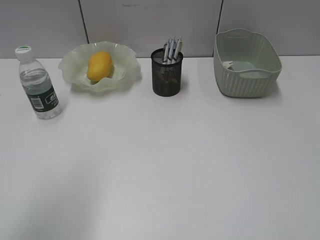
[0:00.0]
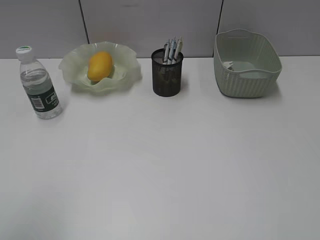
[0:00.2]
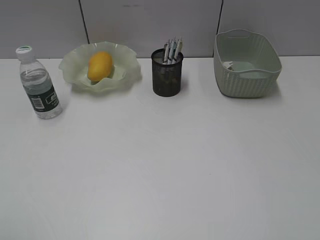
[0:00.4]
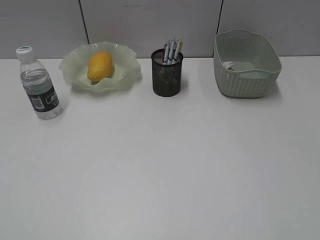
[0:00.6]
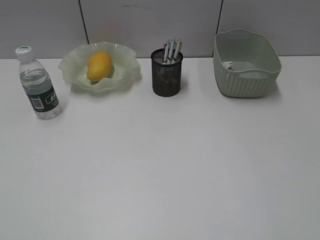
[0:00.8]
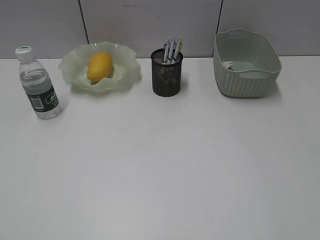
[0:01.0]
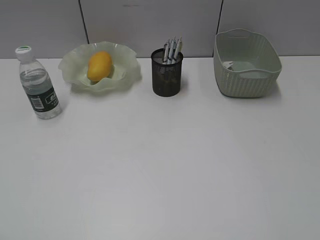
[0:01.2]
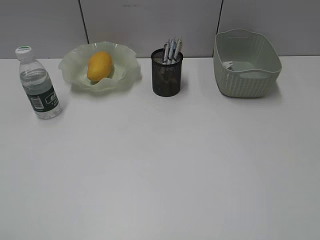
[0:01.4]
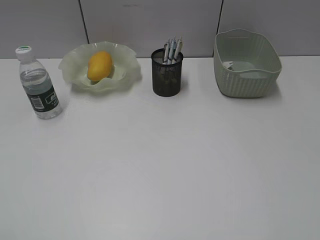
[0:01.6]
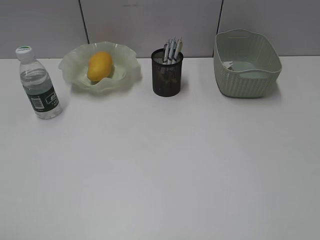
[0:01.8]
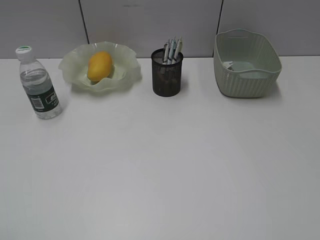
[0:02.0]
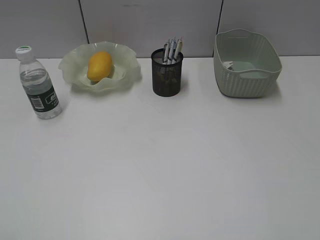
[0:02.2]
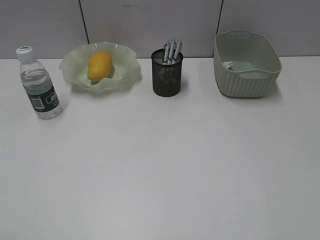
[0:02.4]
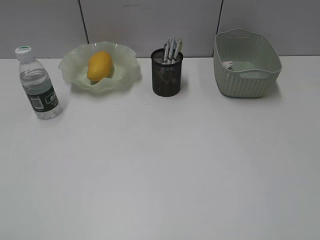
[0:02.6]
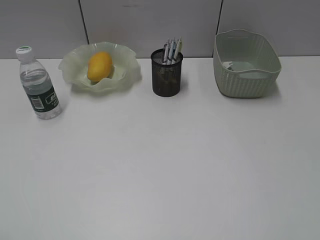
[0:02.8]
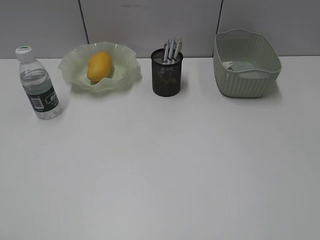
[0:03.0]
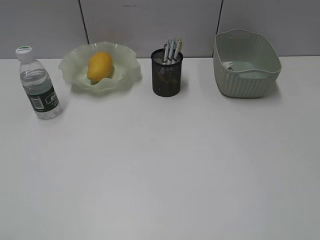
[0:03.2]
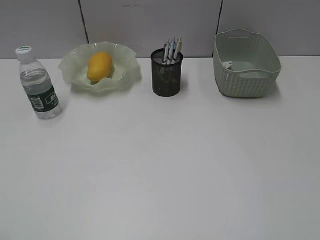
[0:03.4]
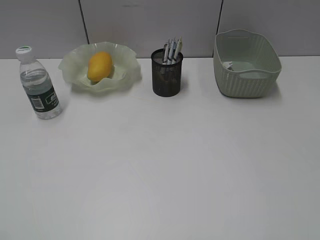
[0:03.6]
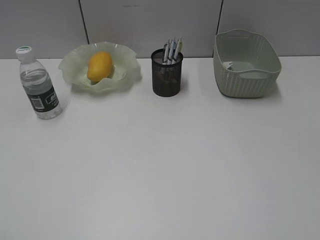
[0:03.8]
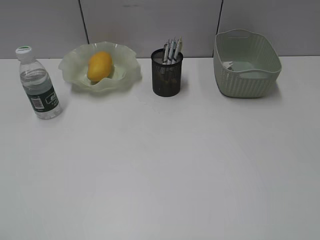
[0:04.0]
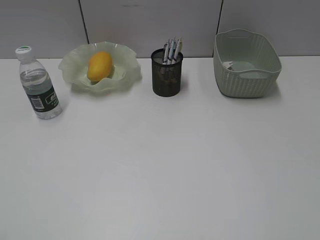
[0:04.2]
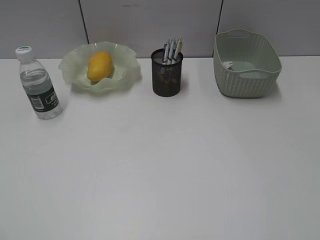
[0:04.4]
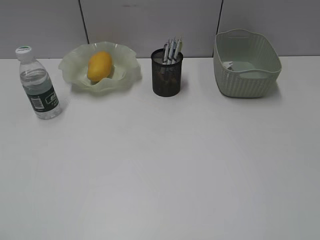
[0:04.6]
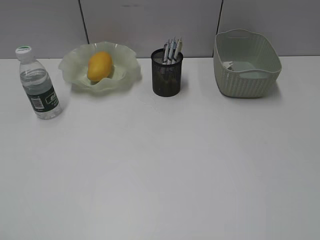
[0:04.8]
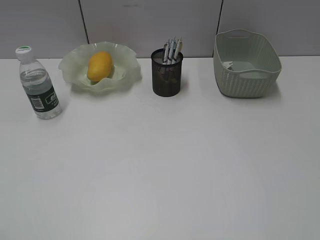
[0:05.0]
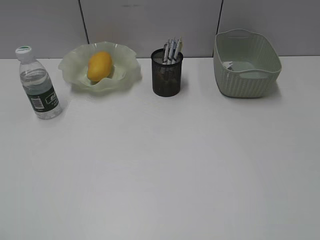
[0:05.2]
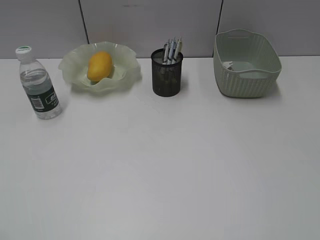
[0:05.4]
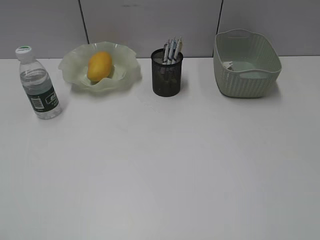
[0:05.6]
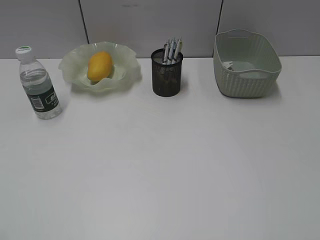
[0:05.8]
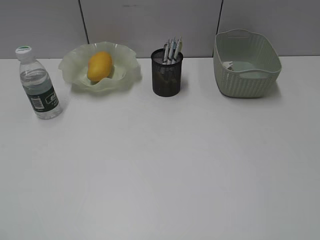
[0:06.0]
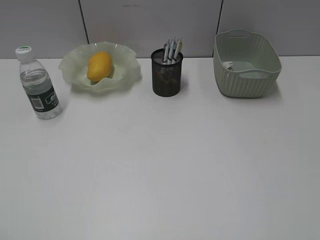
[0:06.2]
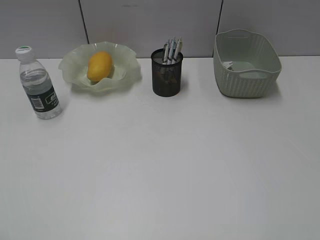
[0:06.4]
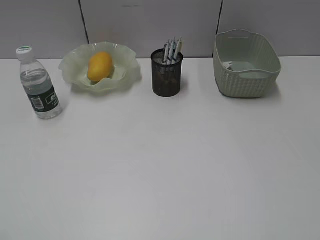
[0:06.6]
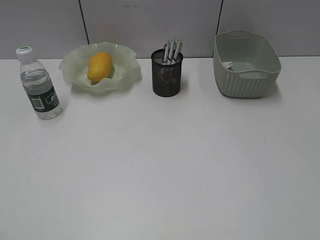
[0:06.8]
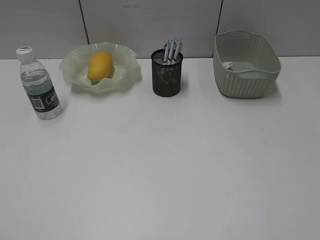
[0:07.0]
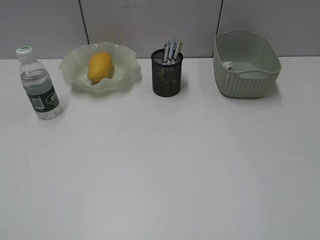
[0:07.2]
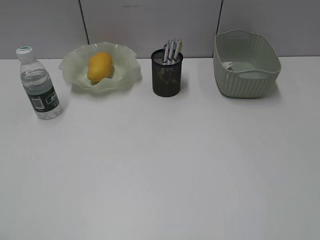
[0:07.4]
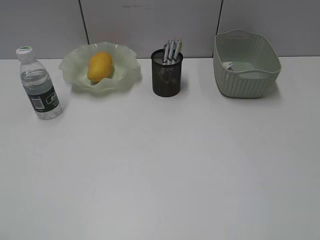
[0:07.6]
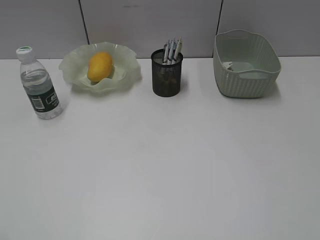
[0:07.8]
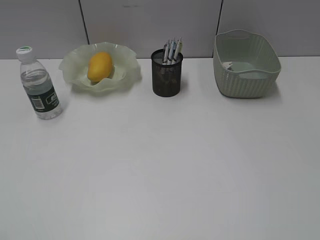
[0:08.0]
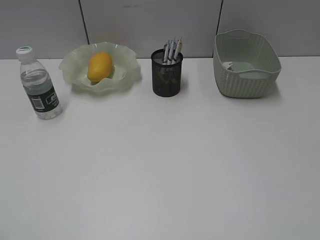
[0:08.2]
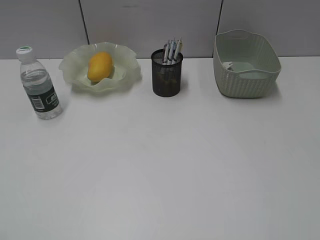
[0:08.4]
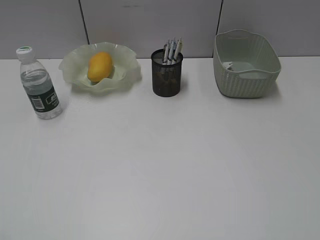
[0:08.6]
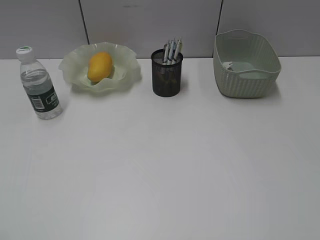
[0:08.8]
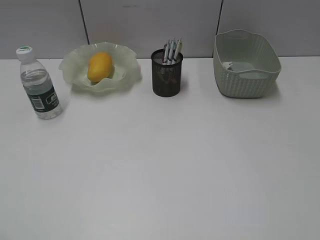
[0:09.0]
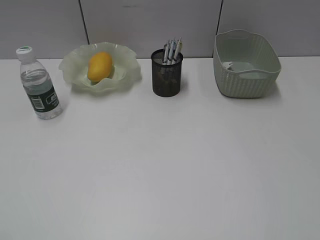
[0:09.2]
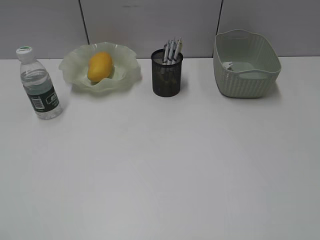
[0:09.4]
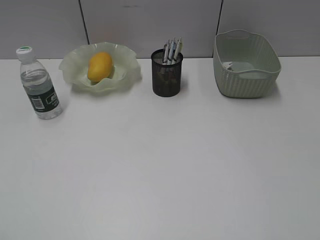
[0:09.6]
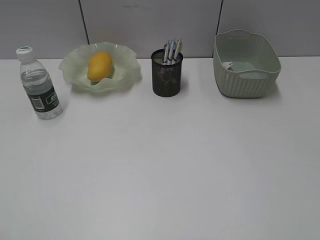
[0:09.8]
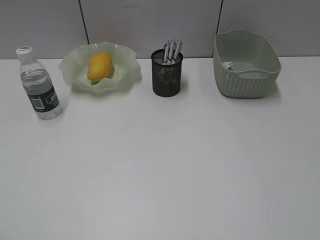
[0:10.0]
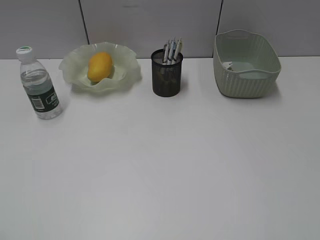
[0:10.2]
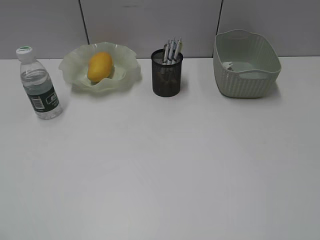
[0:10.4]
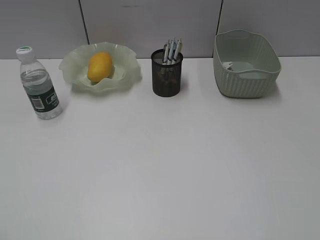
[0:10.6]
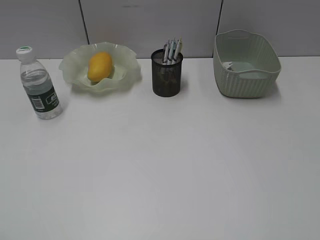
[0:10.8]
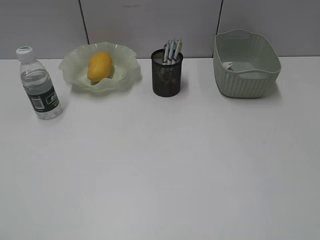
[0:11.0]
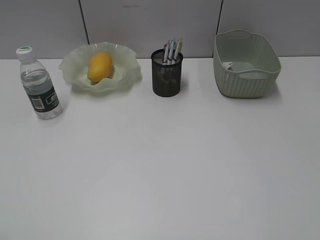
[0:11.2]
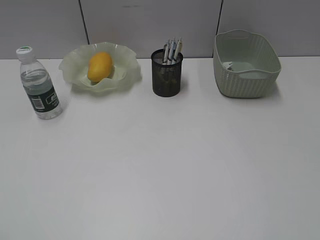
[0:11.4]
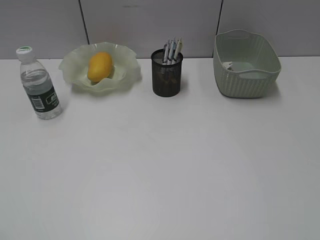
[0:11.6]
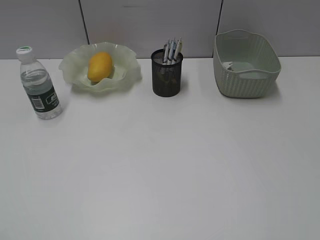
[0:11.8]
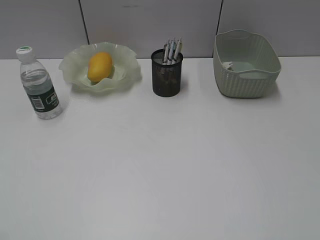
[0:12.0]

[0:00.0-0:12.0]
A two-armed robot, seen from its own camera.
0:04.4 to 0:12.0: Neither gripper changes place.

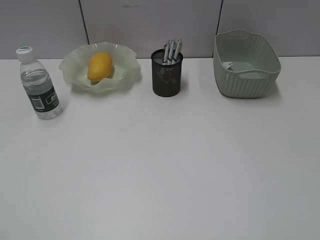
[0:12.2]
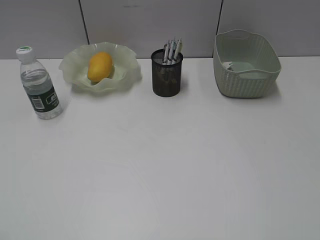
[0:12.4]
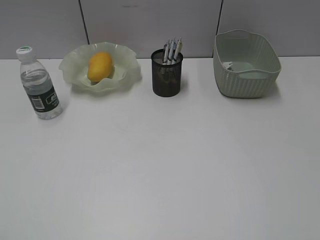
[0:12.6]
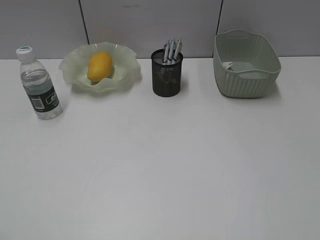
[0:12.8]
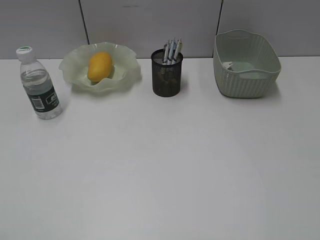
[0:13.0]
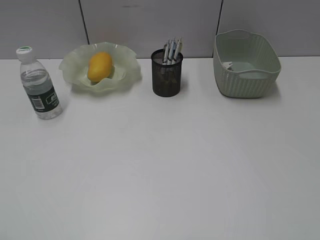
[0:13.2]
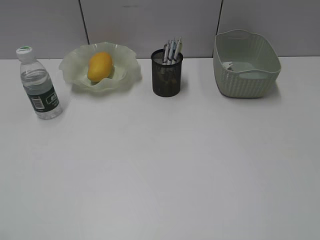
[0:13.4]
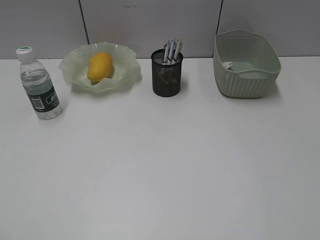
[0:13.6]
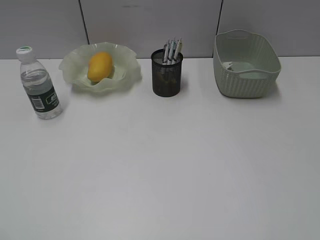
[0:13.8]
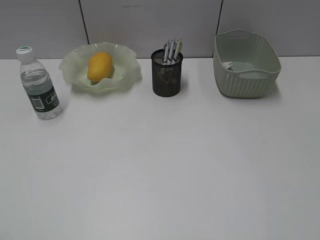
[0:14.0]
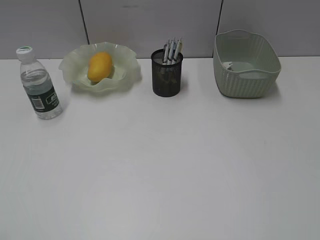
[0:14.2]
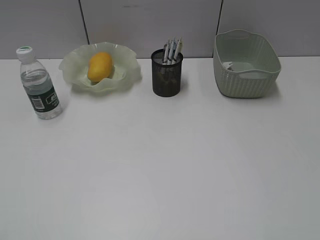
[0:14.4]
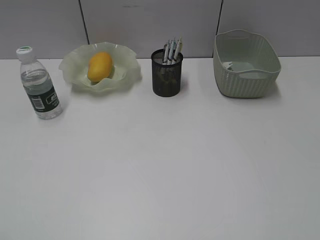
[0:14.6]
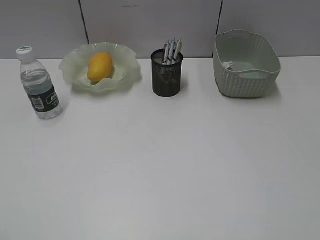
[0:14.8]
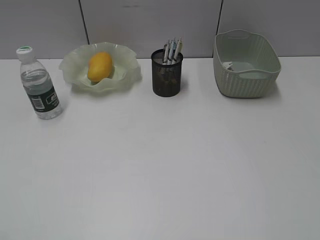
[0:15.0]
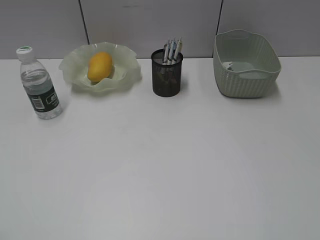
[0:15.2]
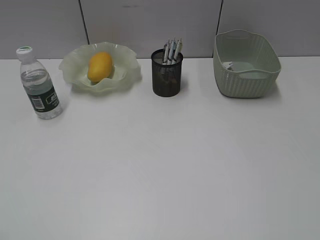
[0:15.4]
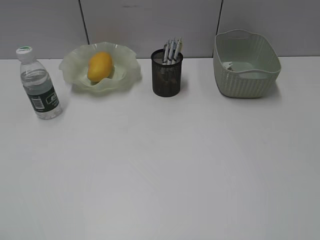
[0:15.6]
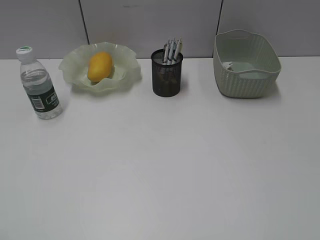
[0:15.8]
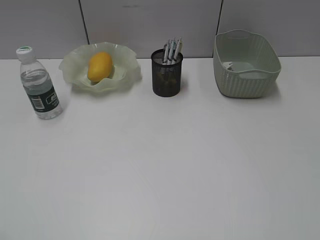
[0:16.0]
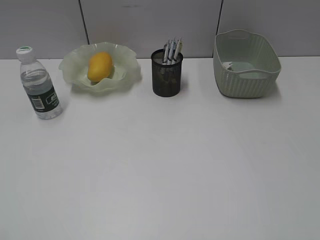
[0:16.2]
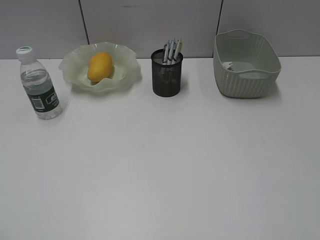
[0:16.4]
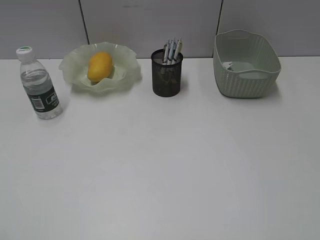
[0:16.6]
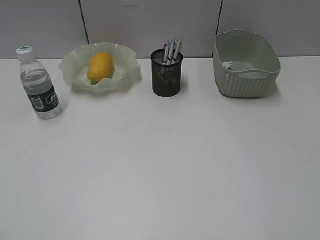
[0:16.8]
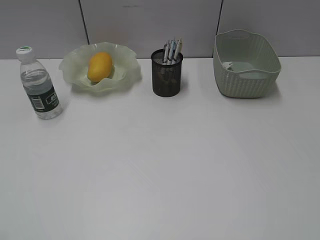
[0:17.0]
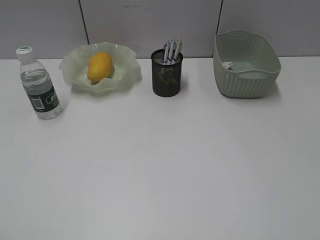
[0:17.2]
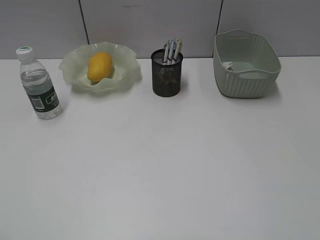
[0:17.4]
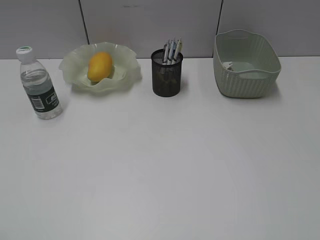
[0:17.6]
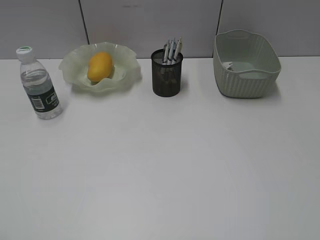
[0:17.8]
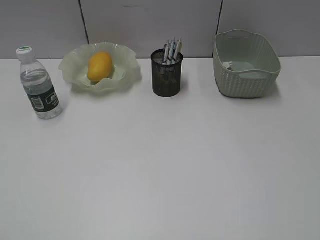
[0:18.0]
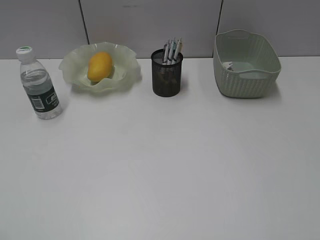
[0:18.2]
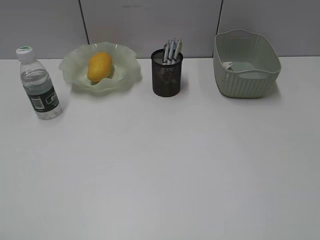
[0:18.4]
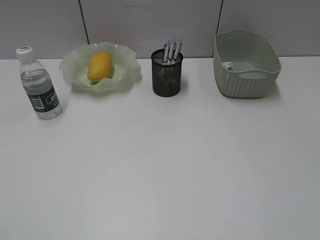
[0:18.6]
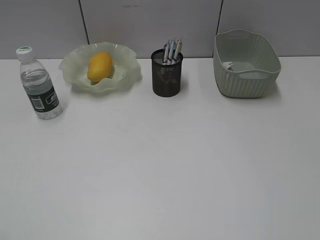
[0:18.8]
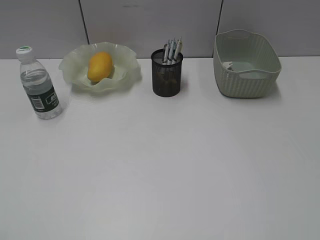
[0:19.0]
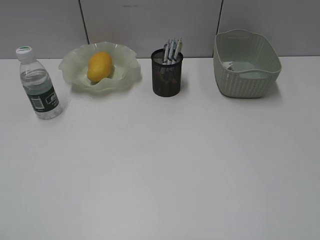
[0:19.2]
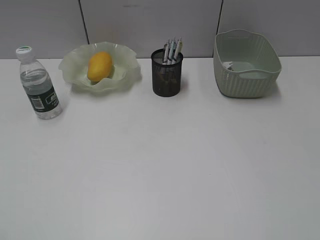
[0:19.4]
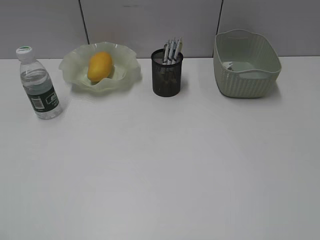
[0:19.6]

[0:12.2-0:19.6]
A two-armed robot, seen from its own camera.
0:12.2 to 0:19.6: The two grippers keep their place.
